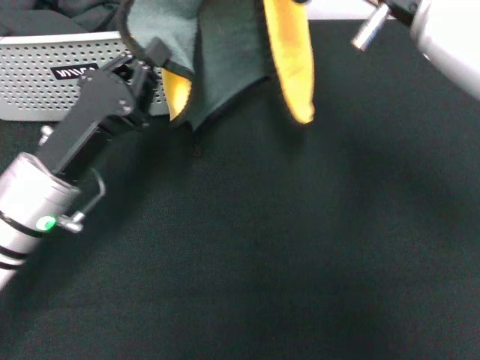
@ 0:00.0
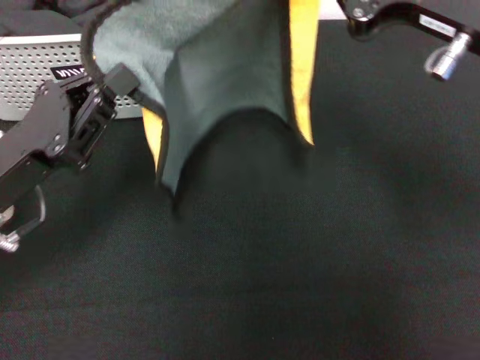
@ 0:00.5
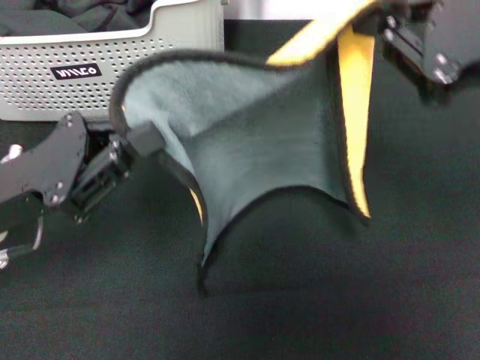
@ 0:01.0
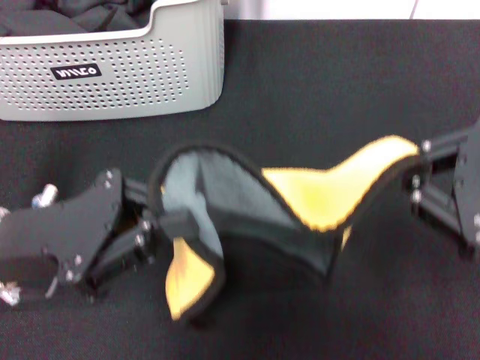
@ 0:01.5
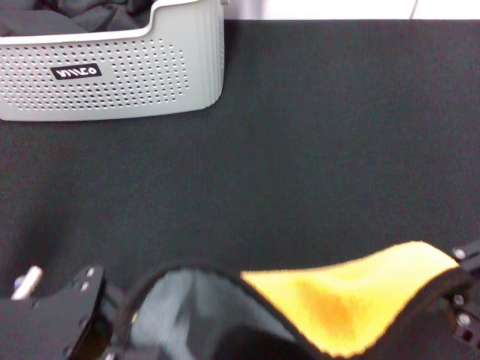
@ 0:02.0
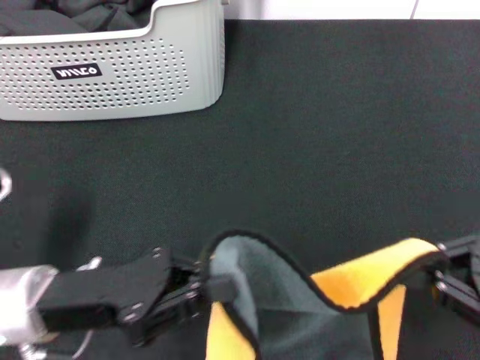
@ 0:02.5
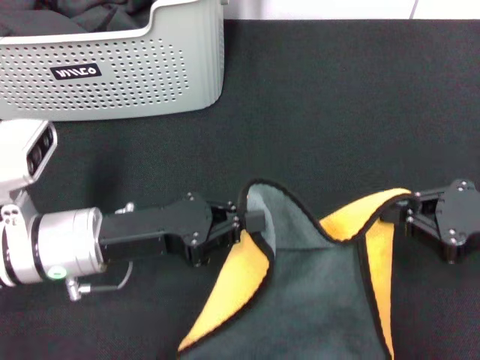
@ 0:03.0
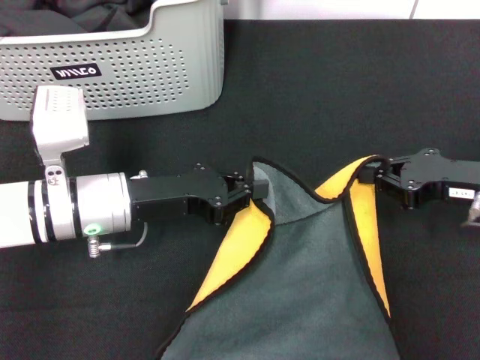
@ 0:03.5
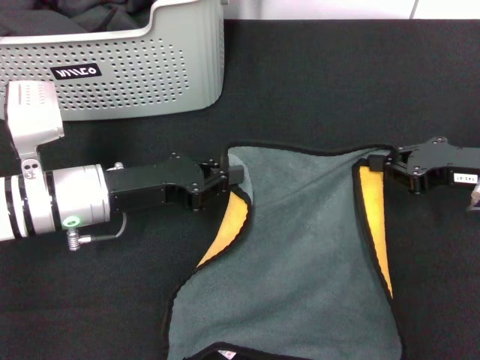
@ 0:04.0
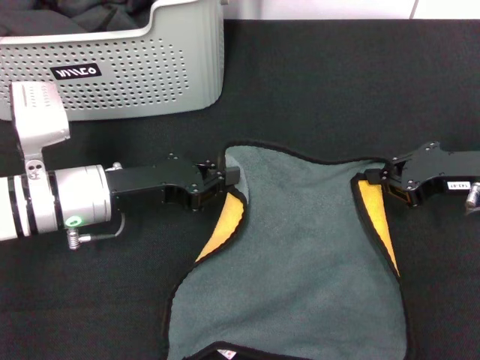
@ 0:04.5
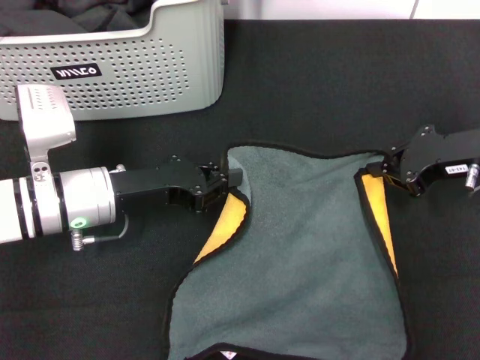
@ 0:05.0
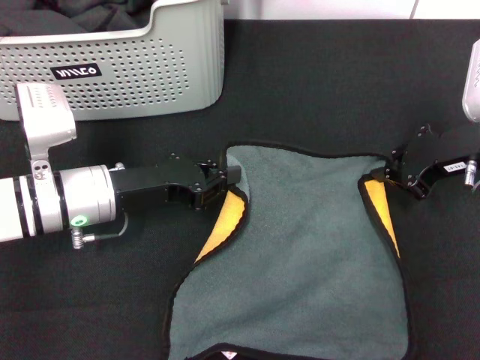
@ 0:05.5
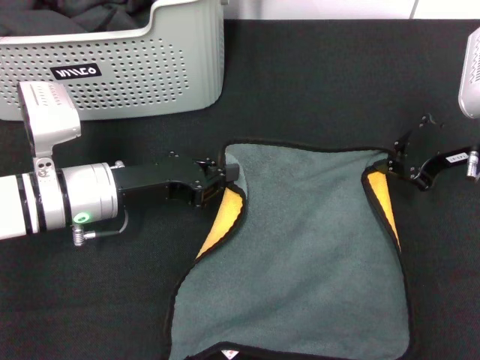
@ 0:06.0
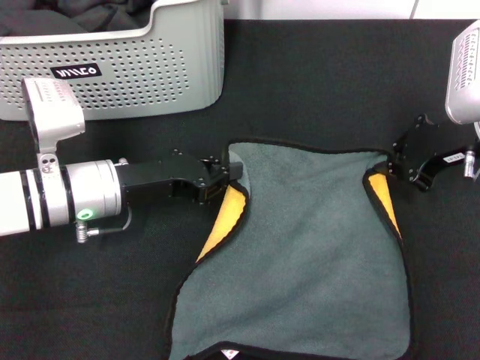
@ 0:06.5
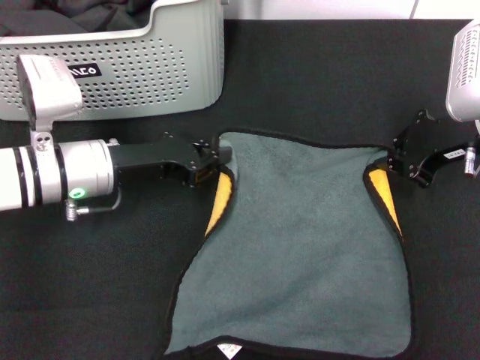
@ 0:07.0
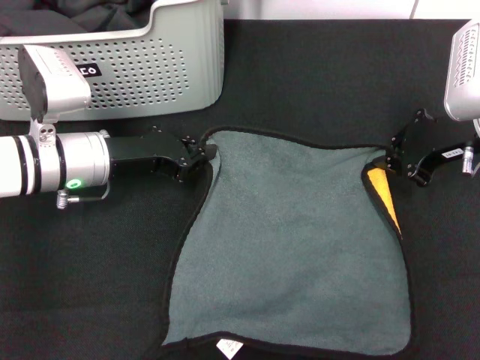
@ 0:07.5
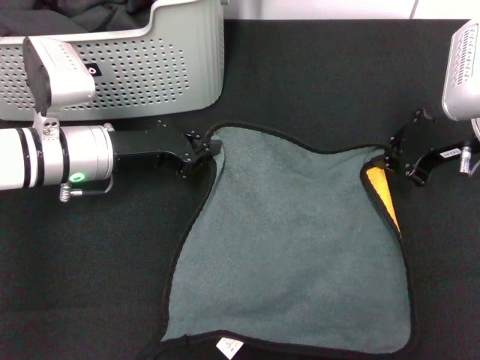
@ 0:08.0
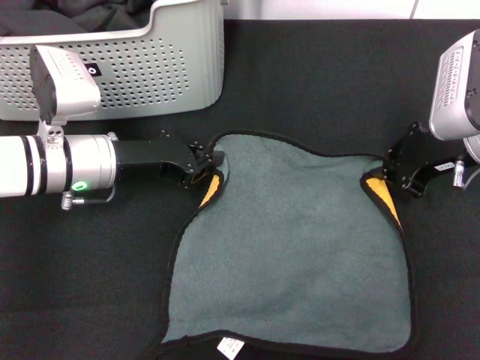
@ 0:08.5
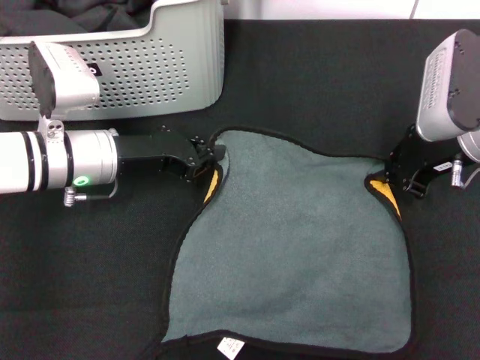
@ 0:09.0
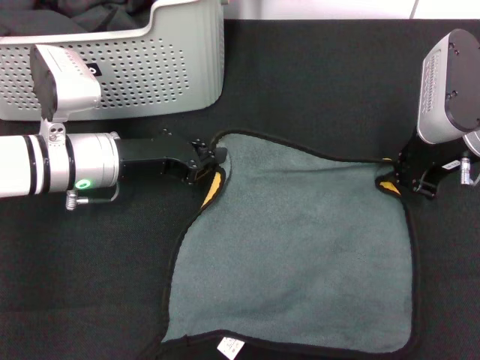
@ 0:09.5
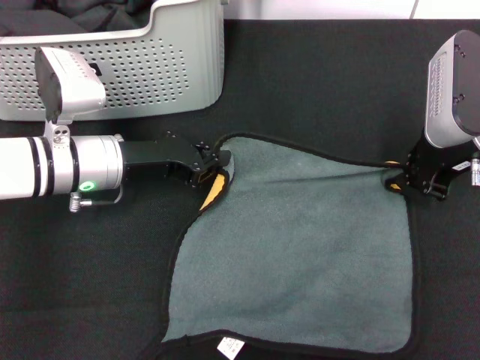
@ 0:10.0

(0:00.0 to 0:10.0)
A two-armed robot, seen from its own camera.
Task of the whole recording: pick up the towel from the storage box and lay it flat on the black tablecloth.
0:00.0 - 0:02.0: The right gripper goes some 20 cm backward and to the right. Meanwhile the left gripper heads backward, covering approximately 10 cm.
0:02.0 - 0:04.0: The left gripper is displaced forward and downward by approximately 15 cm. Meanwhile the right gripper goes approximately 20 cm forward and downward.
0:04.0 - 0:06.0: The right gripper ends up approximately 5 cm from where it was.
0:08.0 - 0:10.0: The grippers move only a little.

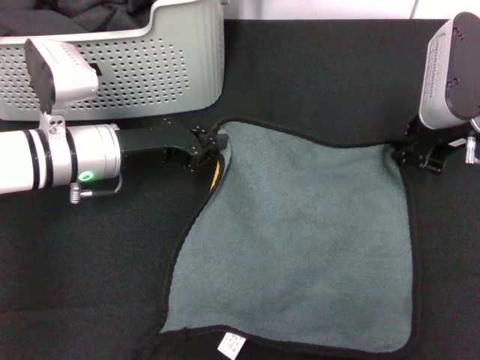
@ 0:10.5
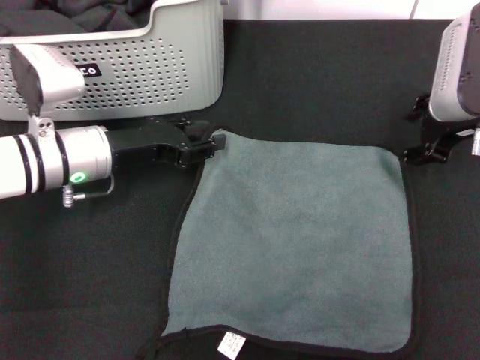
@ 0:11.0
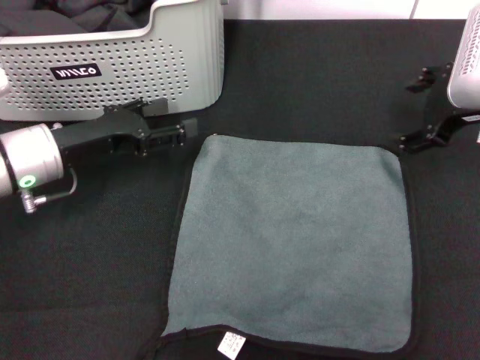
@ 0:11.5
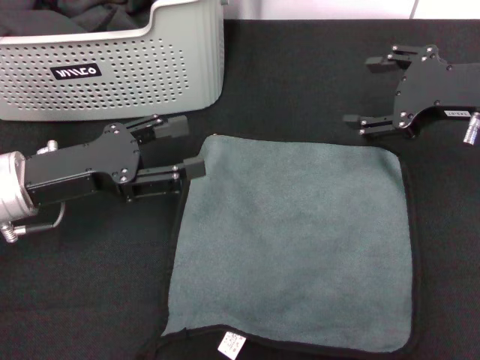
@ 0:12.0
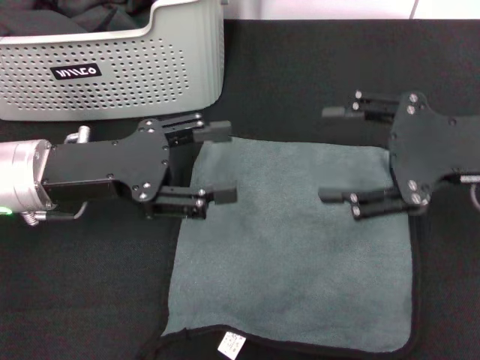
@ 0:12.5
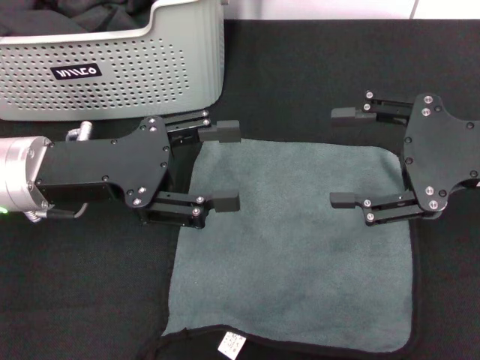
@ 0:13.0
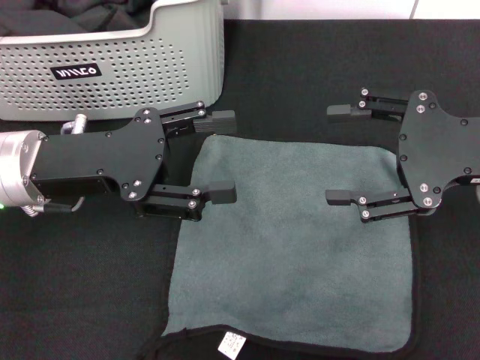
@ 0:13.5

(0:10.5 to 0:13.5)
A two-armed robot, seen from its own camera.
Task of the whole recording: pick up the towel from the storage box and lay it flat on the black tablecloth.
0:10.5 - 0:12.0: The right gripper ends up some 5 cm from where it was, and opens up, while the left gripper travels backward and to the left by some 10 cm, and opens its fingers.
